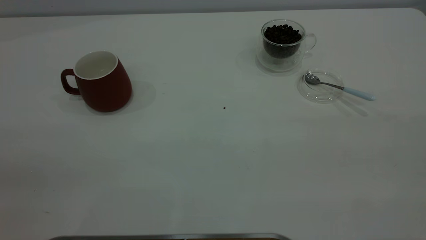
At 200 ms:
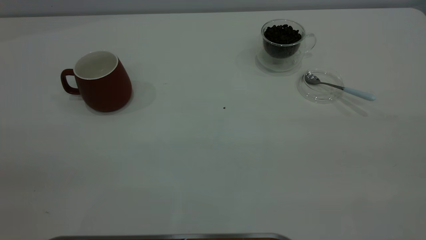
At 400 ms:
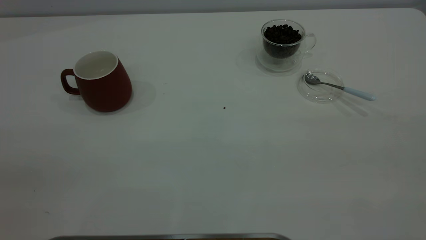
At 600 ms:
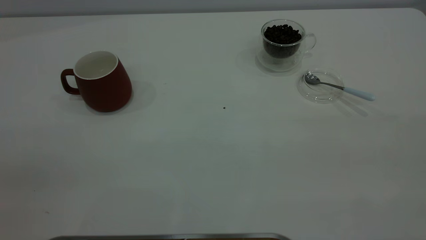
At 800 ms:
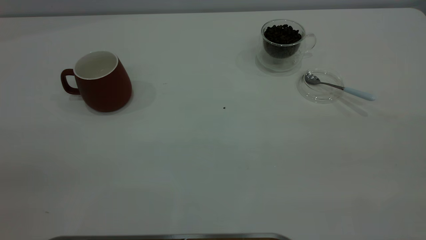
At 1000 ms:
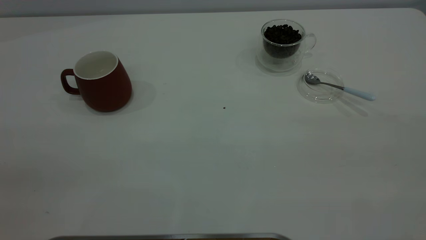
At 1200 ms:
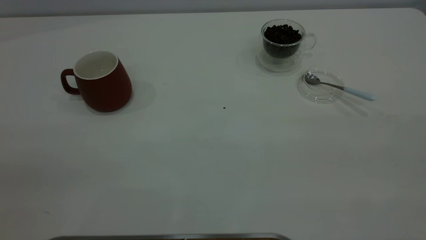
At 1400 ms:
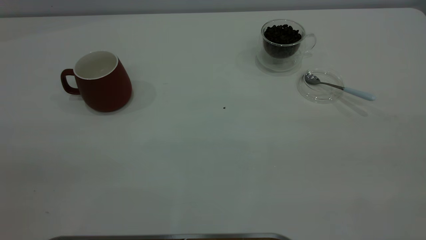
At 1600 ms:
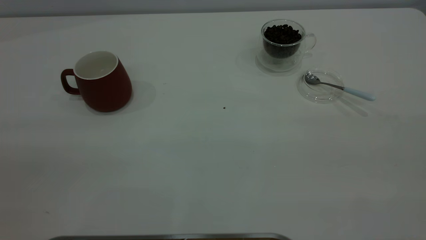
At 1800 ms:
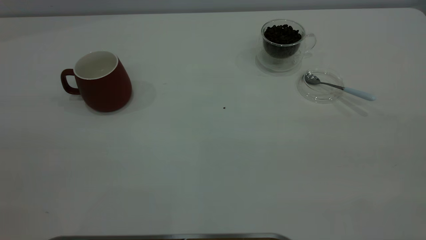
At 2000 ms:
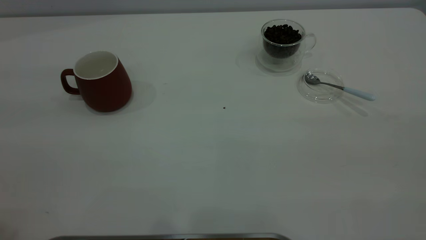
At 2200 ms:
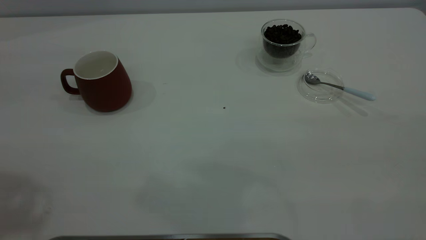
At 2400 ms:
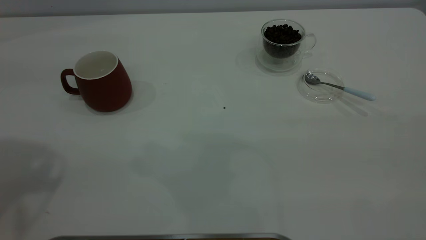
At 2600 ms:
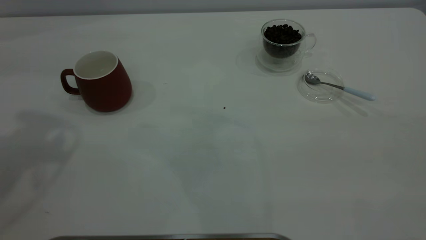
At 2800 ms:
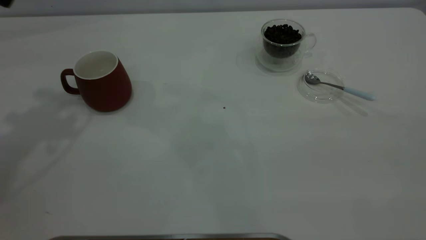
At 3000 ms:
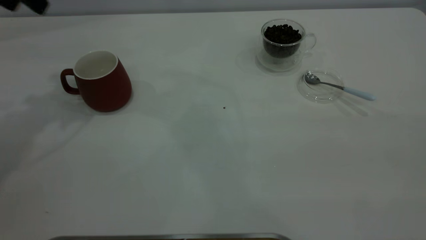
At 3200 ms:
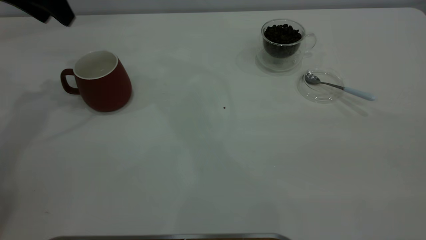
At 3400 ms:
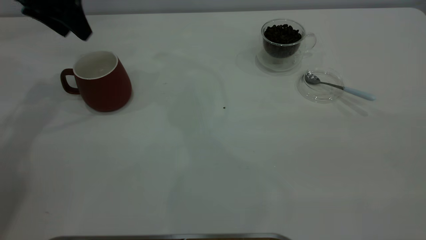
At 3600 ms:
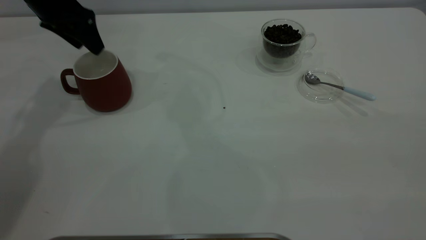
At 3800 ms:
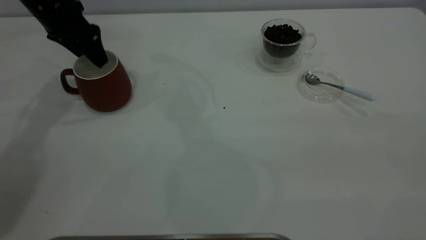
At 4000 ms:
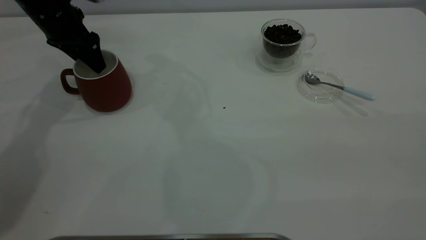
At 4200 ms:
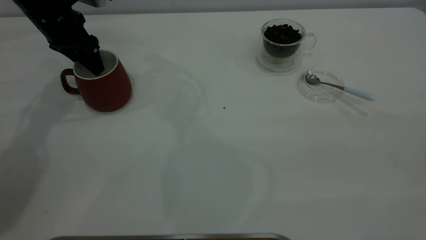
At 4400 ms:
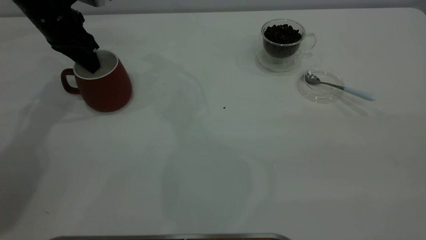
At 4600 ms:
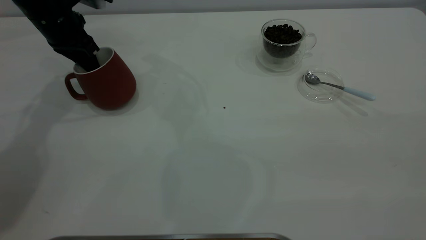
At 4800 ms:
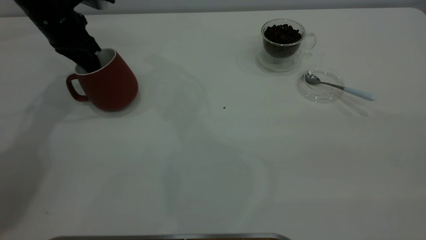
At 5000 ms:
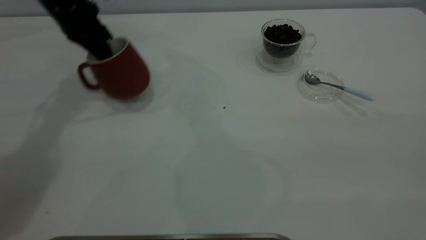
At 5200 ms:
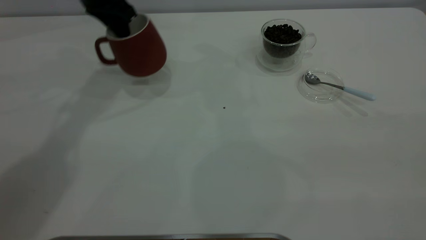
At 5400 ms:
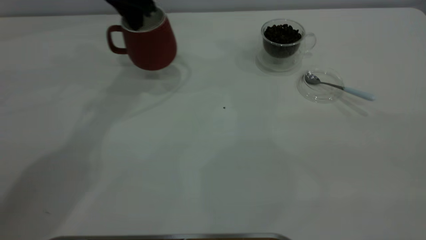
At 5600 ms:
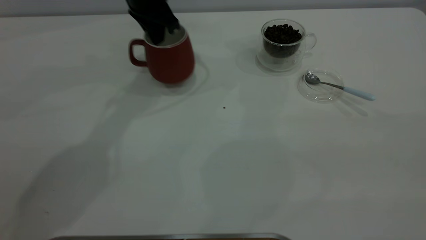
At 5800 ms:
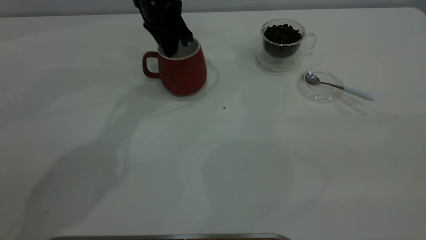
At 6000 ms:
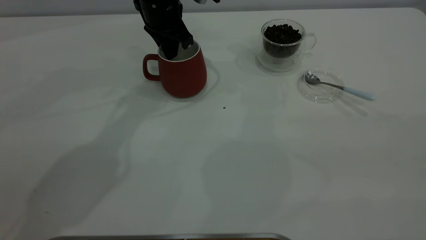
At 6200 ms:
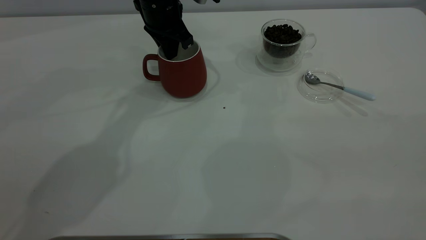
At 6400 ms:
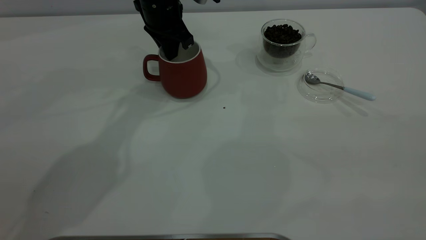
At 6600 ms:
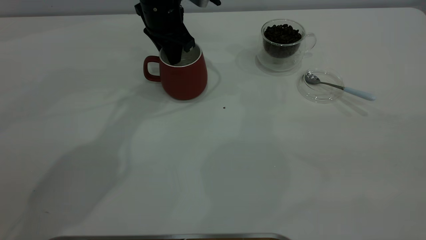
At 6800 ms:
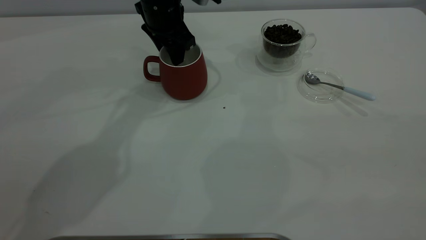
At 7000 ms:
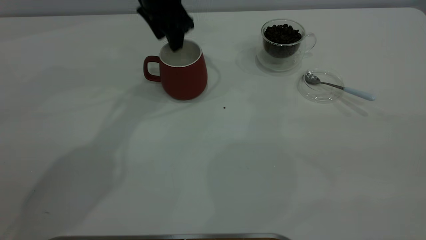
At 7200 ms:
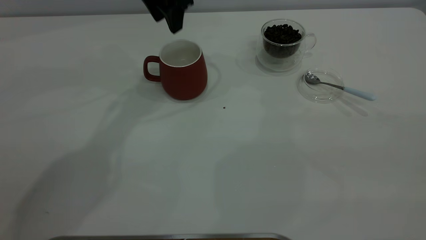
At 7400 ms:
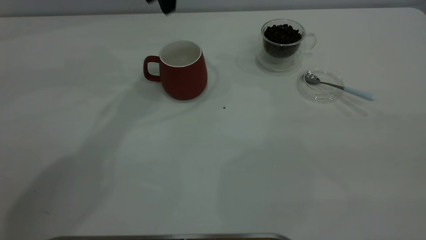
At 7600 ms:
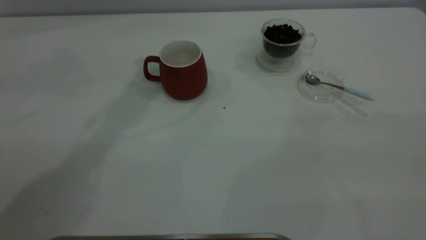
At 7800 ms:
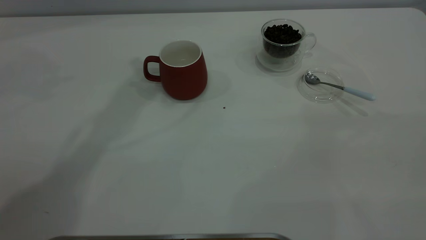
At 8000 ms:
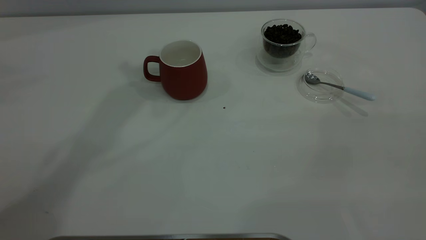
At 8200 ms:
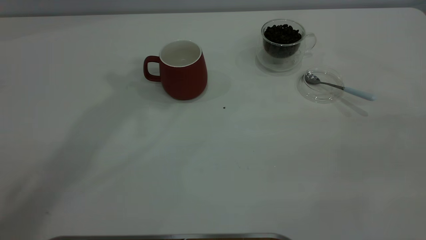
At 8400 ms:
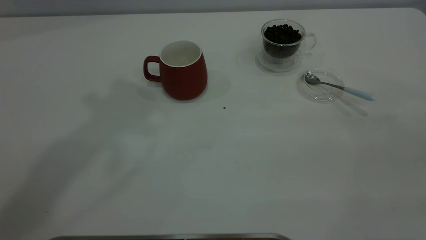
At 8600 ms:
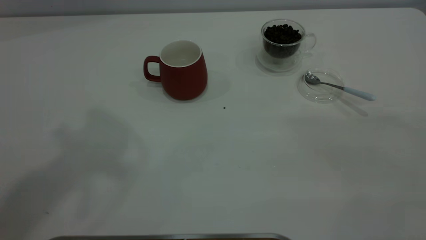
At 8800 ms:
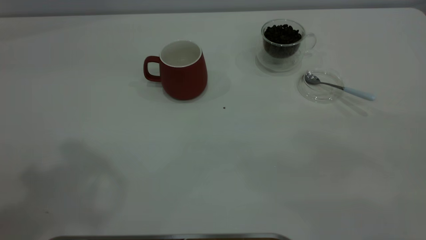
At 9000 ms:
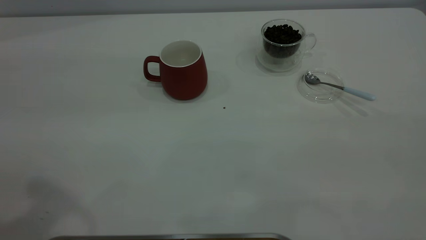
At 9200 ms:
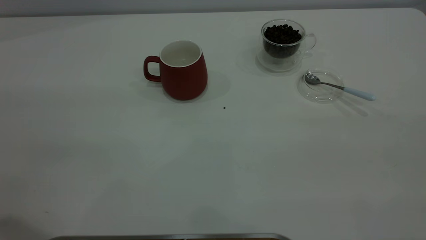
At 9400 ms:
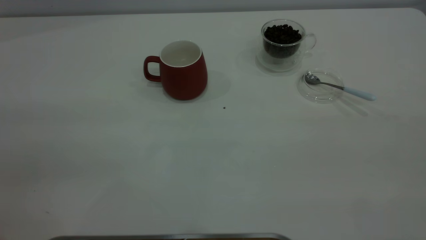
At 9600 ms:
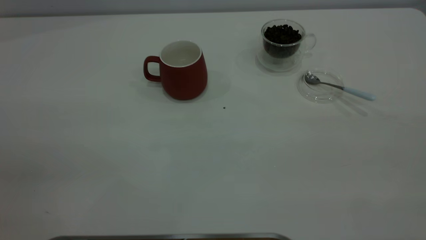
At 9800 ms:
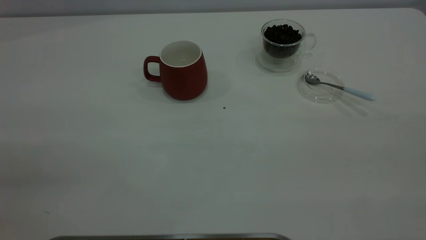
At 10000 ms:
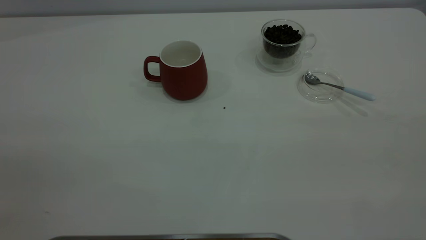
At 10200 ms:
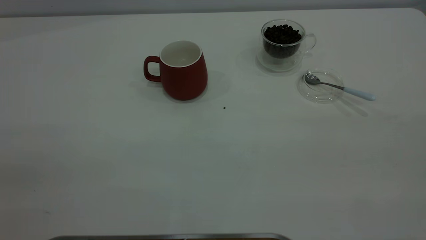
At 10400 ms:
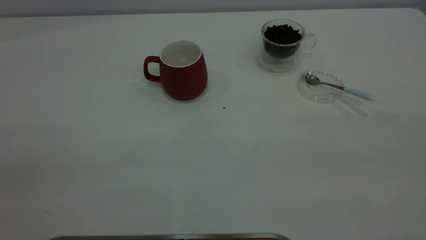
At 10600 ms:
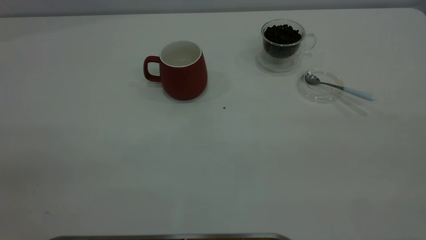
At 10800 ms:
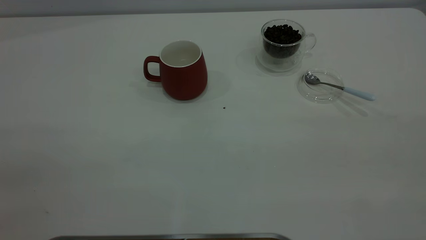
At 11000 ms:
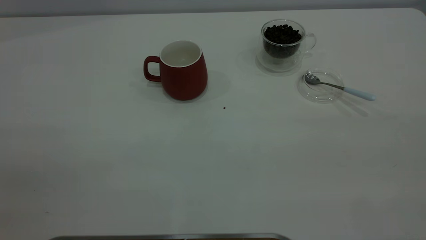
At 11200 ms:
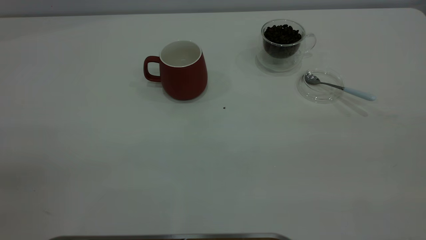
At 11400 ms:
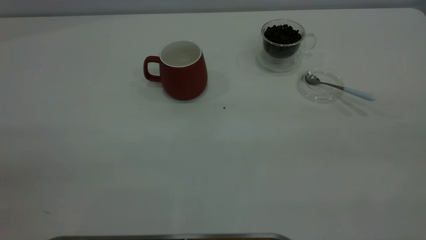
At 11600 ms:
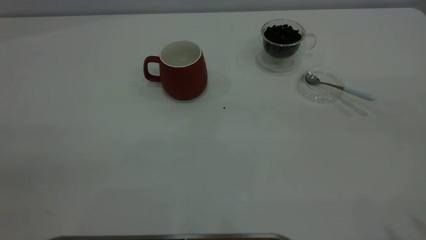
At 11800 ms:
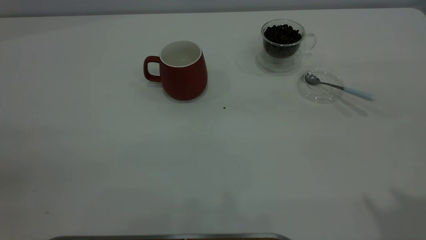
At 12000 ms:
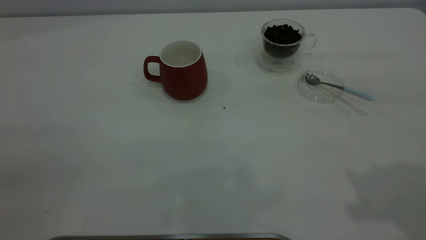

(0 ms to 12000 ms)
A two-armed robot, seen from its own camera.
Task of the whole recording: the left gripper place the red cup in the center of the table, the right gripper take the blue spoon from the cup lid and scoop out the coffee beans from the coffee cup and put them into the red cup, the right gripper put the spoon back into the cup lid.
Step, 0 ms - 7000 ms: Move the cup to the center of view.
3000 ms - 4400 ms: The left gripper moves downward and forward, about 15 cm, and closes.
4400 ms - 6000 ms: The left gripper heads to the right, covering approximately 20 cm.
6000 ms - 7600 ms: The left gripper goes some 20 cm upward, and opens its fingers.

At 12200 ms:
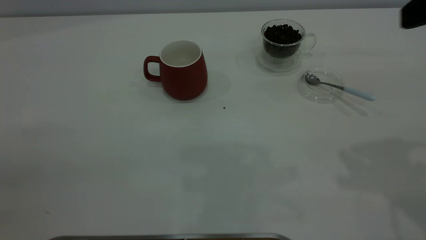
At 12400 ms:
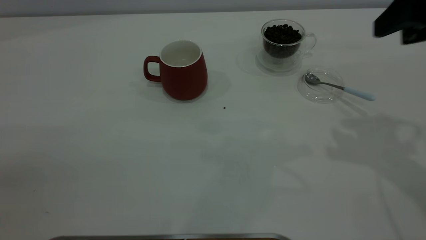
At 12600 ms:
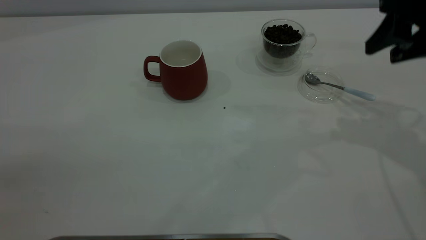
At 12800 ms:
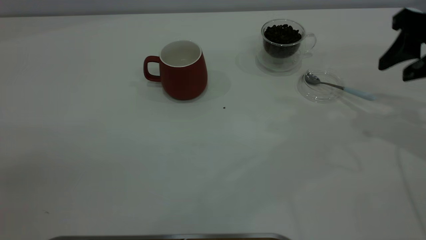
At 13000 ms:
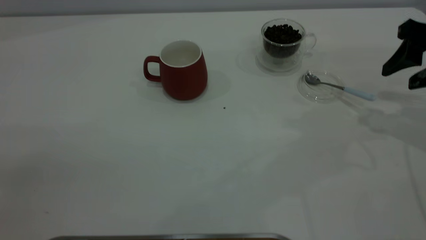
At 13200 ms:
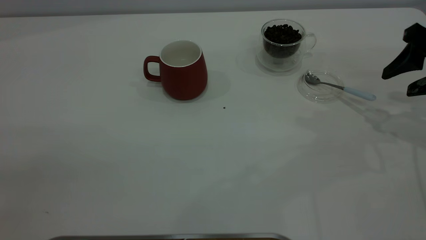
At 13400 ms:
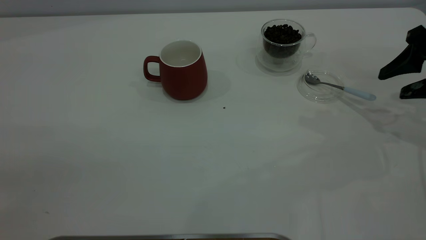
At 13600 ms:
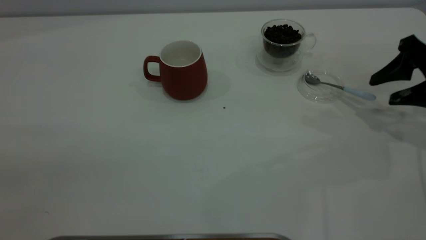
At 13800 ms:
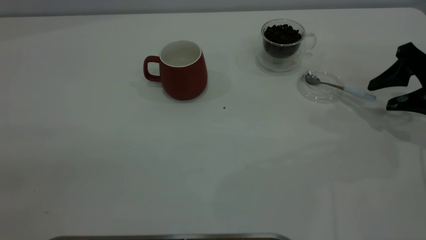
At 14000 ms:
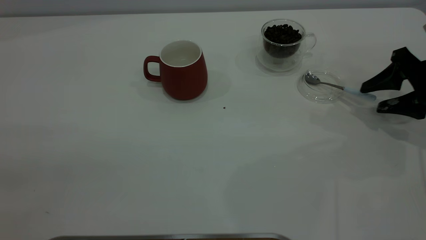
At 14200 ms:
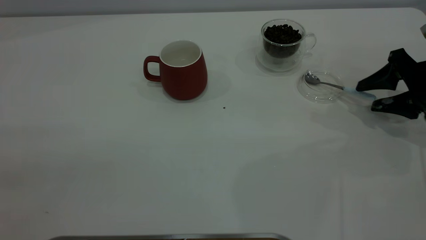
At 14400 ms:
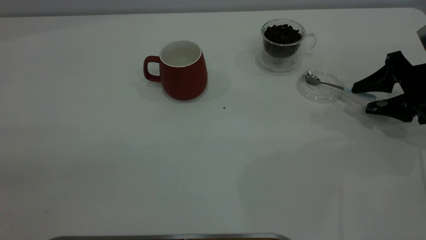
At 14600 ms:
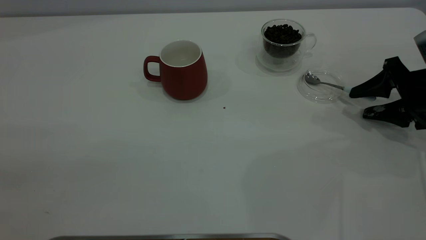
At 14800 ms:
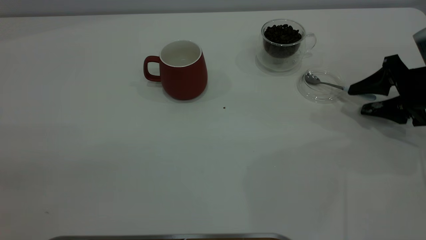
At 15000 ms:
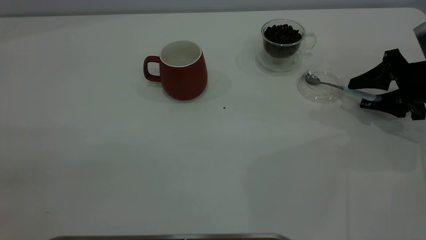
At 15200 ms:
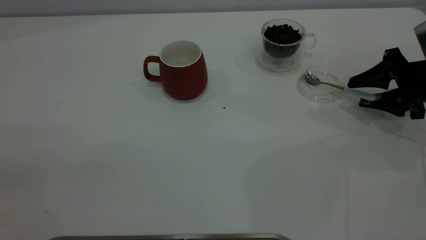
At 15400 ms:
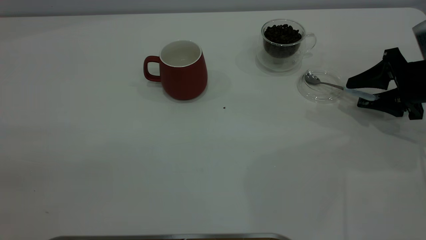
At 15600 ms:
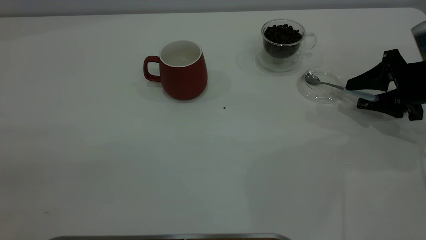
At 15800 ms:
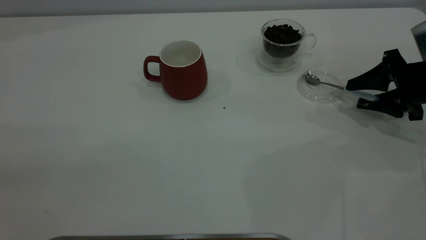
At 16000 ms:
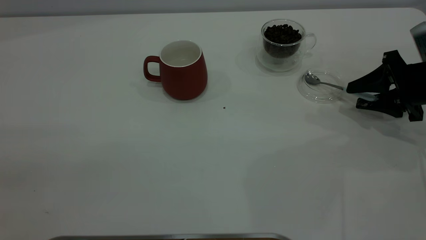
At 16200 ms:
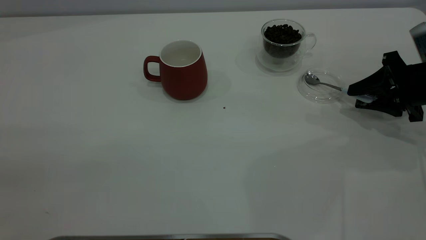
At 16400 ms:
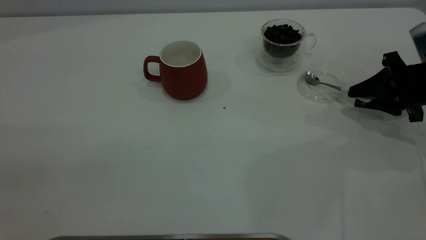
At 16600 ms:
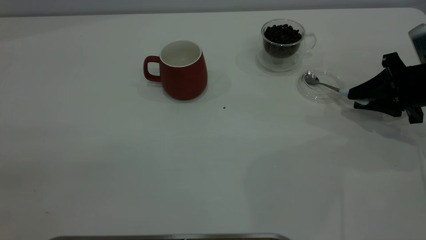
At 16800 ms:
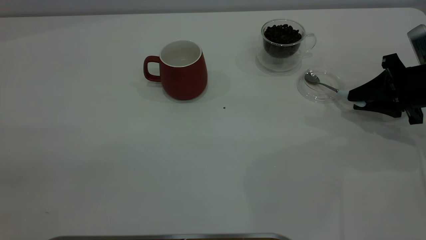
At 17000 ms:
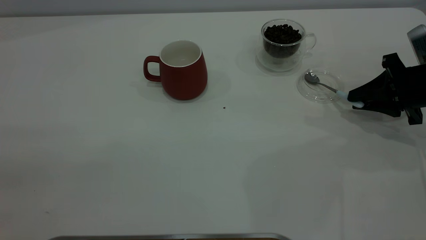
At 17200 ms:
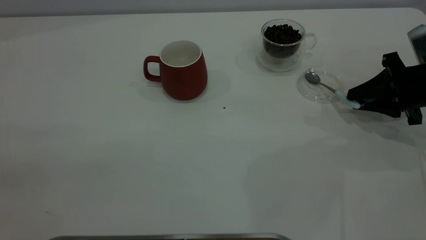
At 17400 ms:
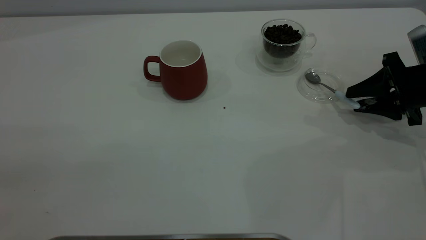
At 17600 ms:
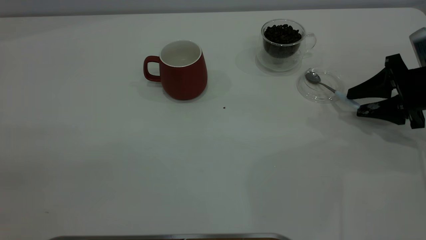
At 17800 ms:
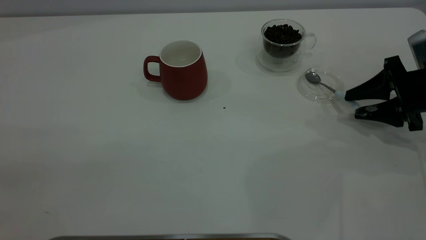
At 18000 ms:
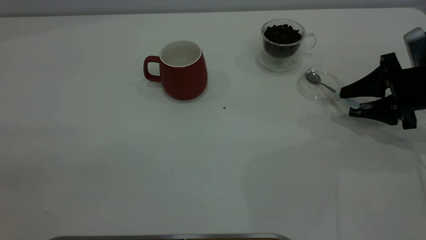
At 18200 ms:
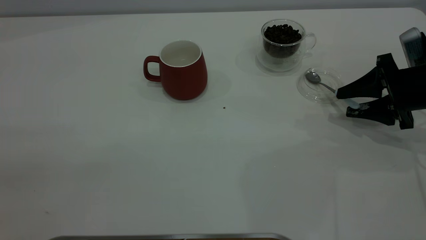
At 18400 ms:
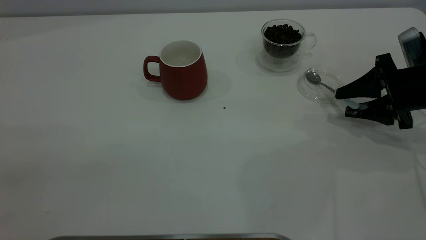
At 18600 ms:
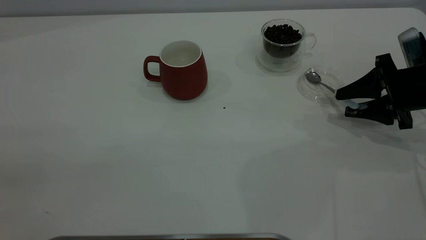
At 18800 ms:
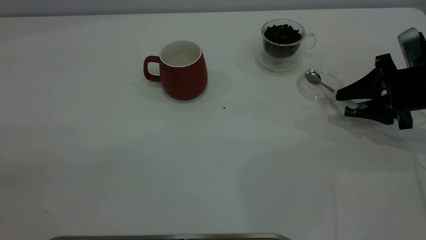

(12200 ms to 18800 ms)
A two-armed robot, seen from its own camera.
Task of the whole recording: the left gripper place the red cup in the center of the table, the right gripper take the blue spoon from the cup lid and scoop out the coffee beans from the coffee cup and put them into the red cup, the right gripper put the spoon back into the cup lid.
12200 ms - 13800 ms: The right gripper travels downward, to the right and forward by approximately 25 cm.
13800 ms - 15400 ms: The grippers stay close to where they were, moving slightly.
15400 ms - 17200 ms: The right gripper closes its fingers.
17200 ms - 18800 ms: The grippers stay close to where they were, moving slightly.
